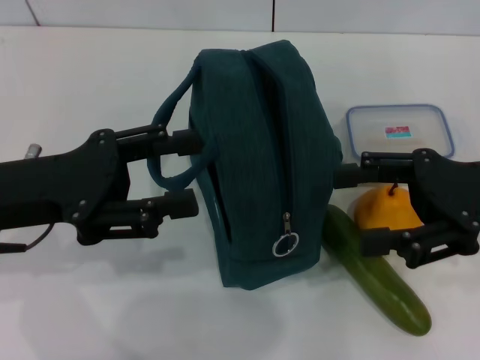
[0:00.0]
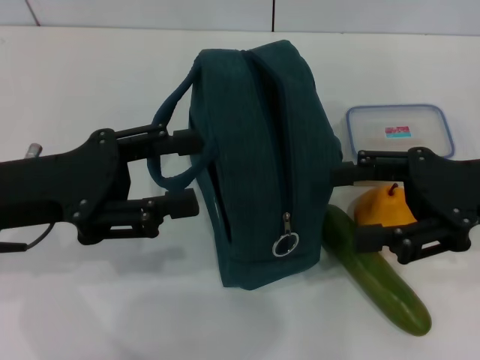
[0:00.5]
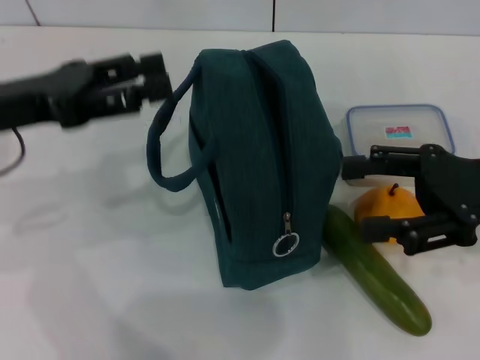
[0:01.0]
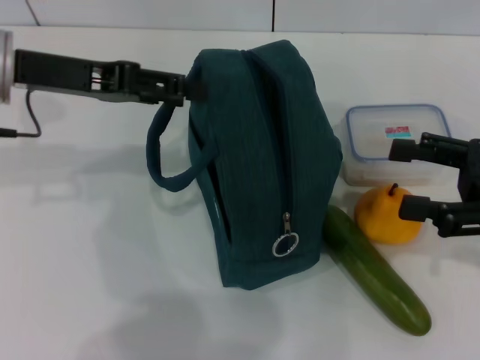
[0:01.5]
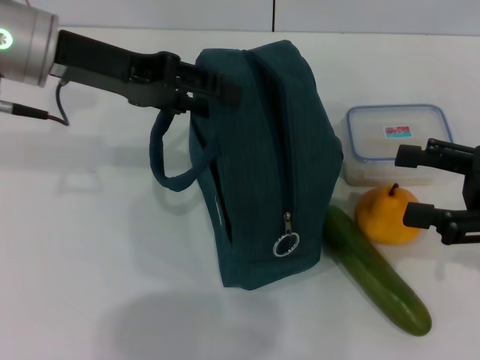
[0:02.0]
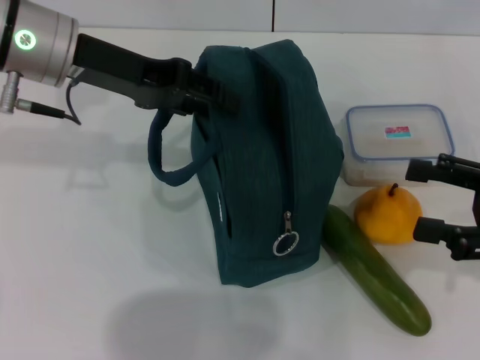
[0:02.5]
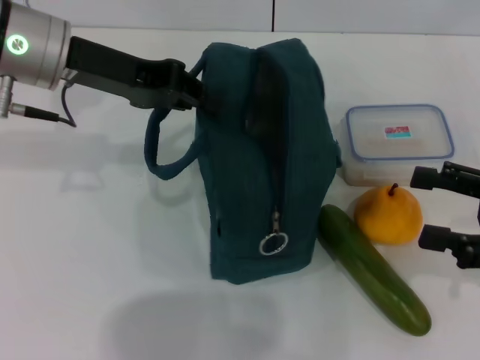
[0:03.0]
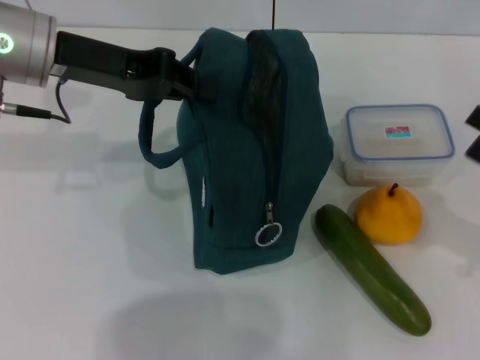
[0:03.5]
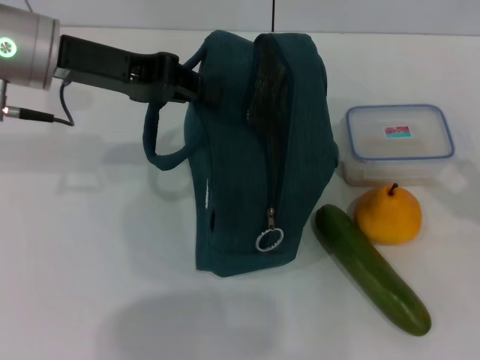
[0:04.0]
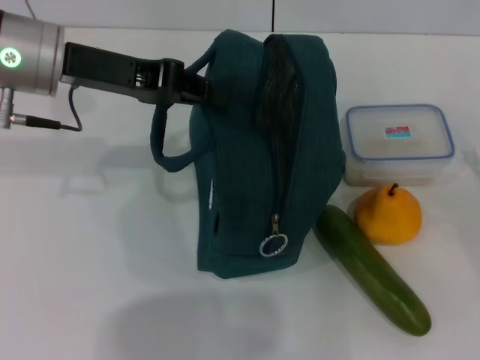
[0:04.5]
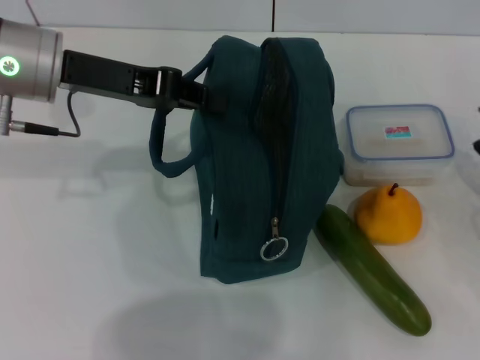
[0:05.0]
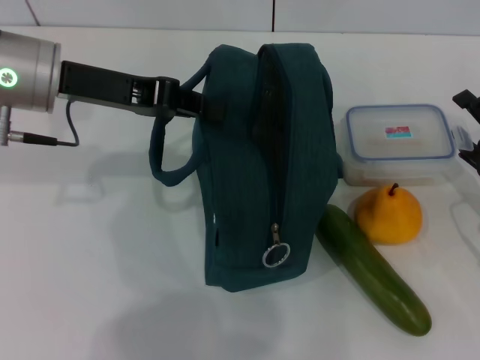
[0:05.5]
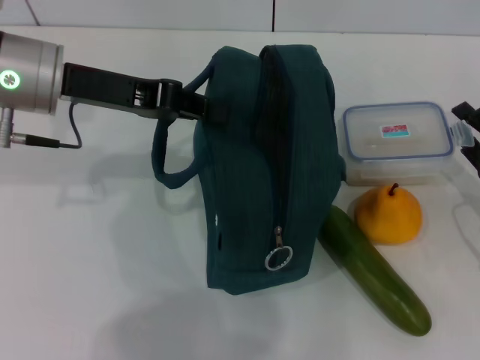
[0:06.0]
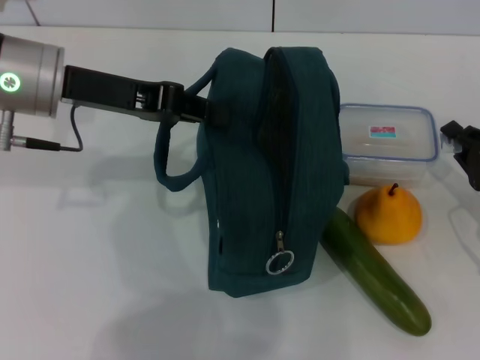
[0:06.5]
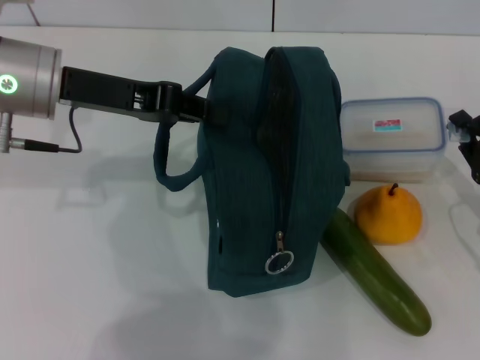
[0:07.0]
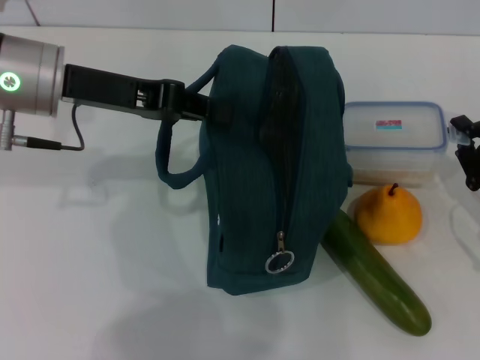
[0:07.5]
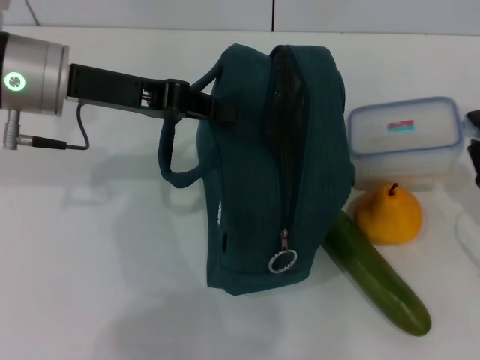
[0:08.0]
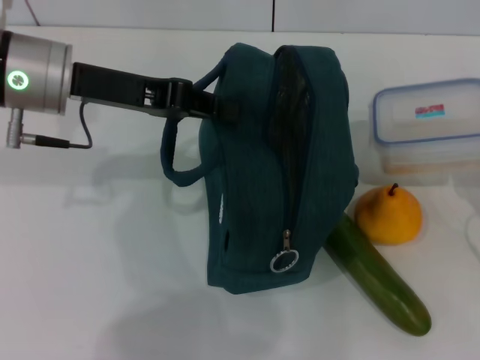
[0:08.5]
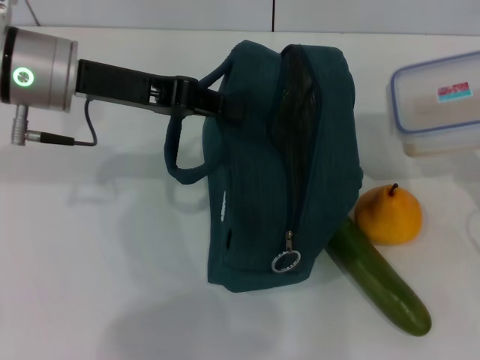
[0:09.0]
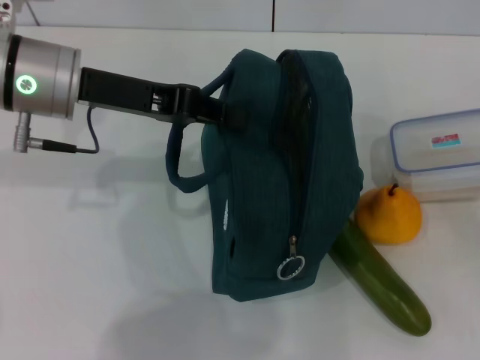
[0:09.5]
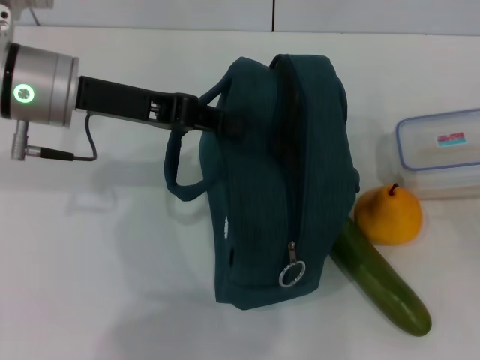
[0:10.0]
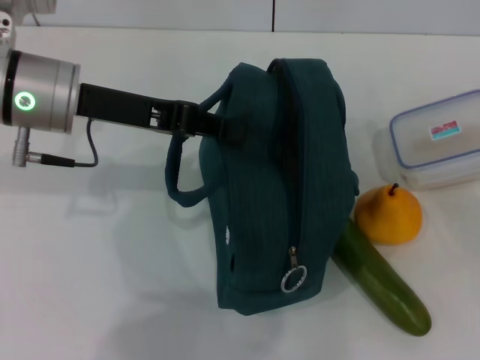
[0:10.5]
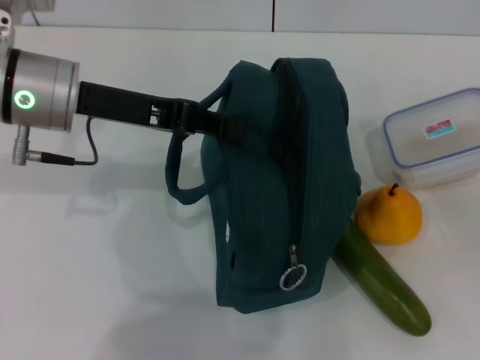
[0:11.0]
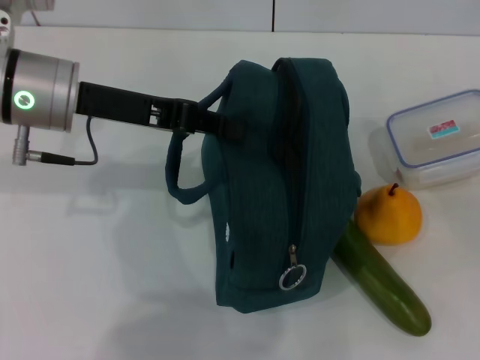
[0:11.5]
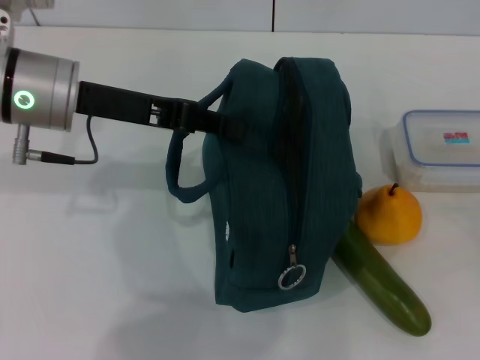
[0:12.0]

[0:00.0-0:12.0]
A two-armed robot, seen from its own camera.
Step, 0:00.0 to 0:02.5: Hold the lunch bag with your left hand.
0:00.0 to 0:02.0: The right gripper moves to the right, some 5 cm; the left gripper moves forward and upward, roughly 15 cm.
0:02.0 to 0:04.0: The left gripper closes. The right gripper moves downward, roughly 5 cm.
0:04.0 to 0:06.0: The right gripper travels forward and downward by about 10 cm.
0:06.0 to 0:08.0: The right gripper closes up.
0:08.0 to 0:10.0: The grippers stay close to where they were, moving slightly.
0:10.0 to 0:12.0: The right gripper opens.

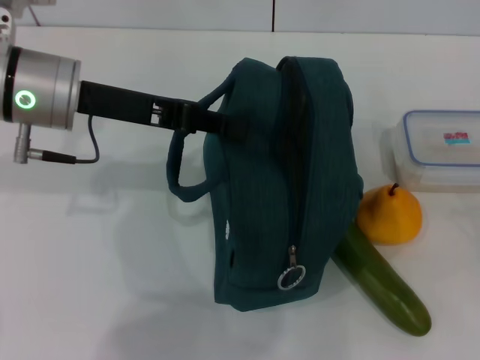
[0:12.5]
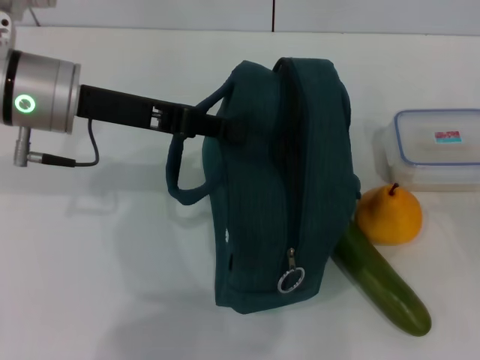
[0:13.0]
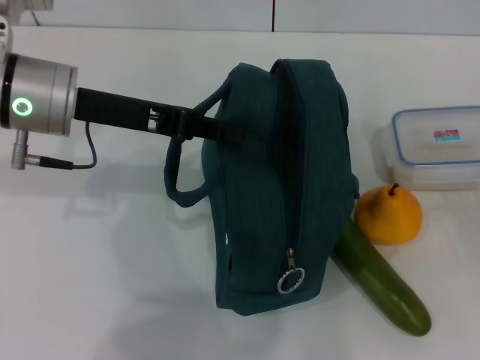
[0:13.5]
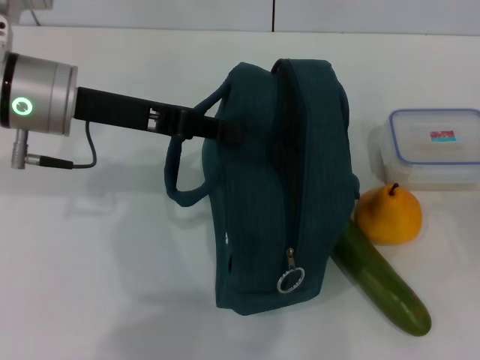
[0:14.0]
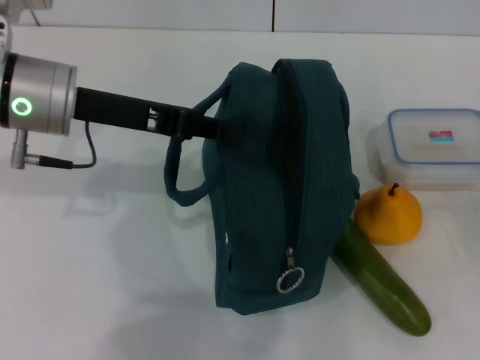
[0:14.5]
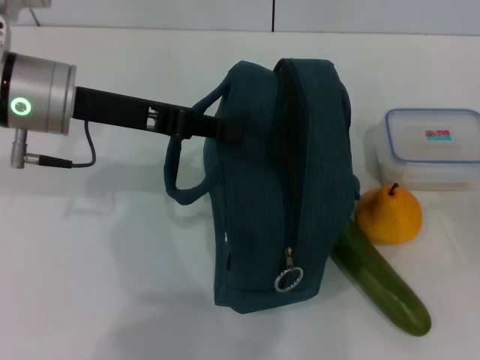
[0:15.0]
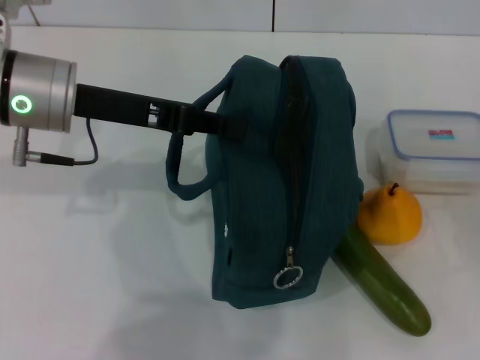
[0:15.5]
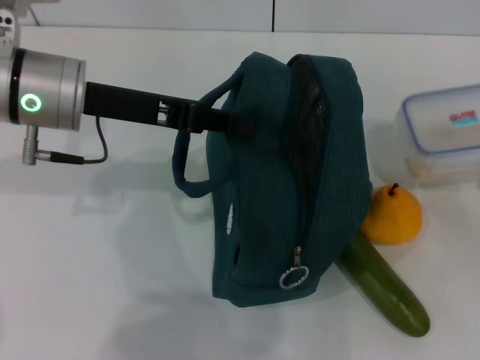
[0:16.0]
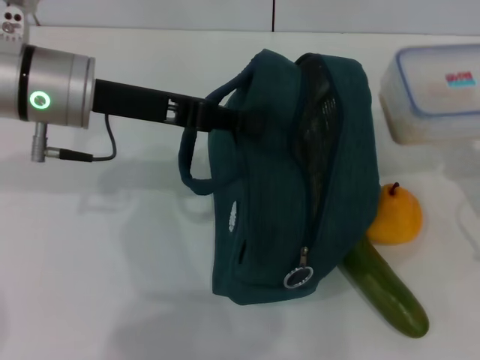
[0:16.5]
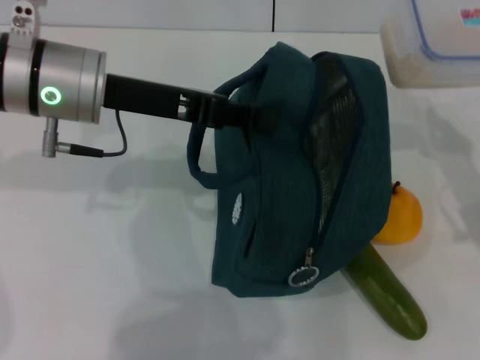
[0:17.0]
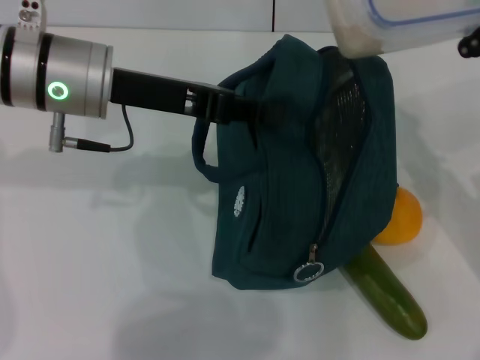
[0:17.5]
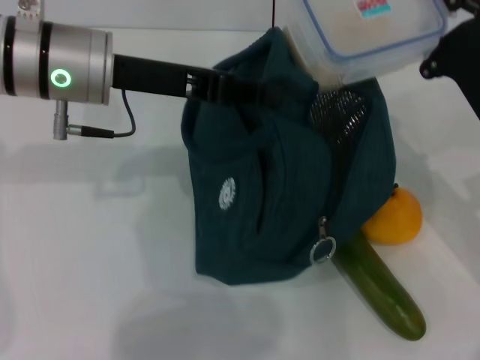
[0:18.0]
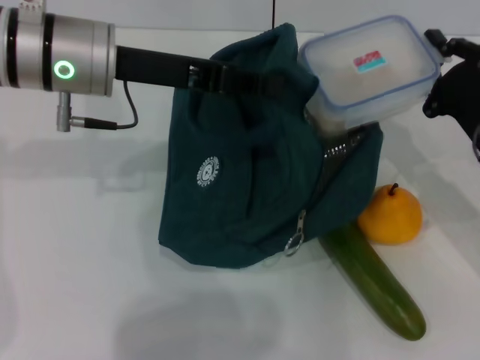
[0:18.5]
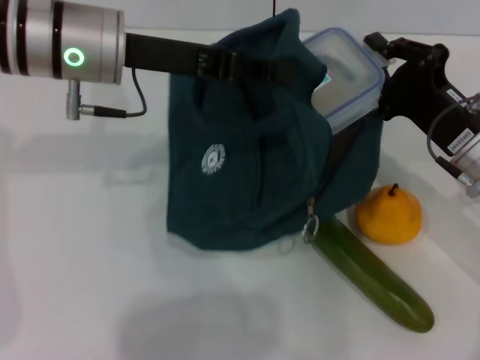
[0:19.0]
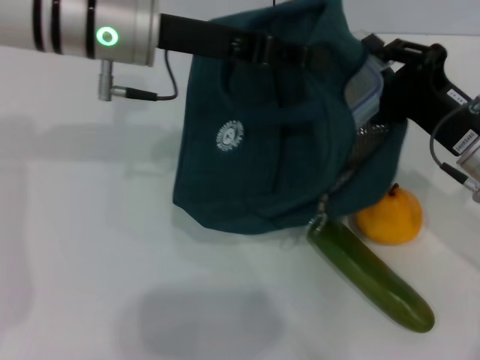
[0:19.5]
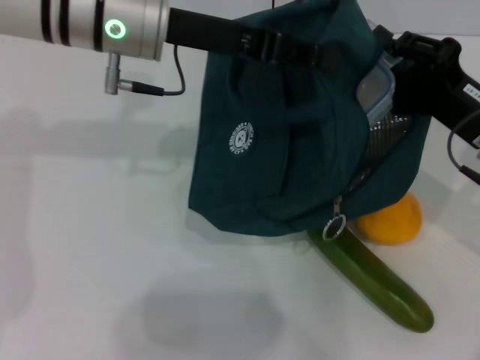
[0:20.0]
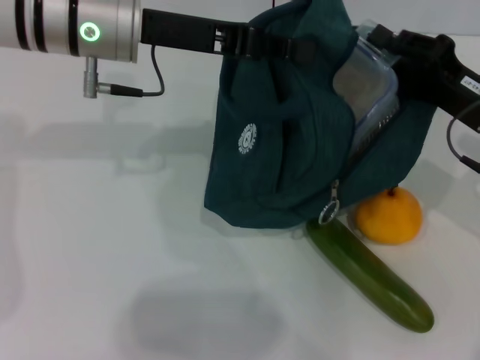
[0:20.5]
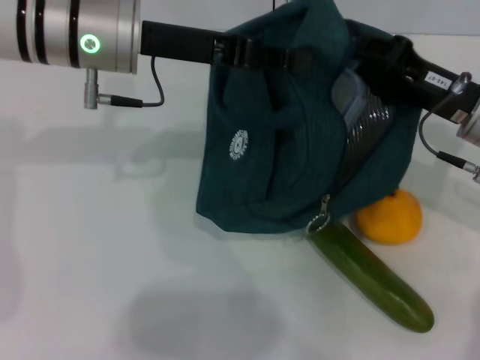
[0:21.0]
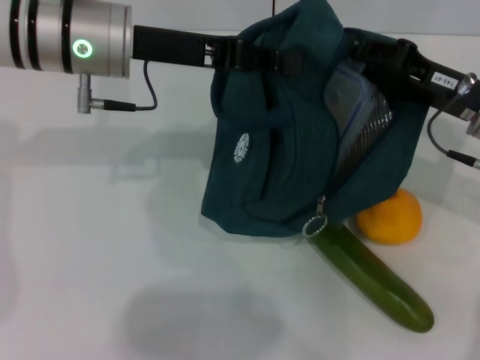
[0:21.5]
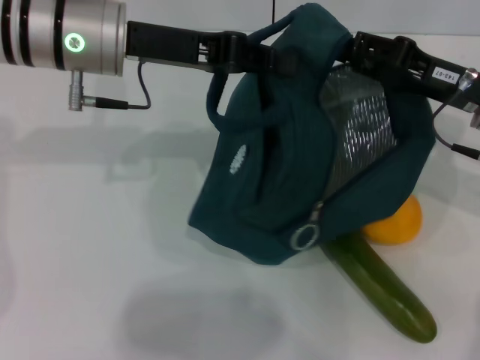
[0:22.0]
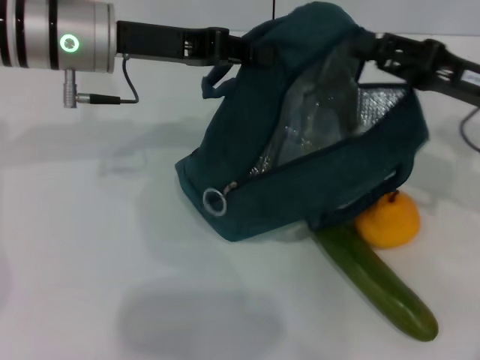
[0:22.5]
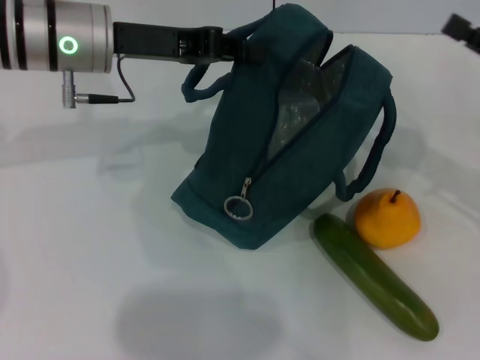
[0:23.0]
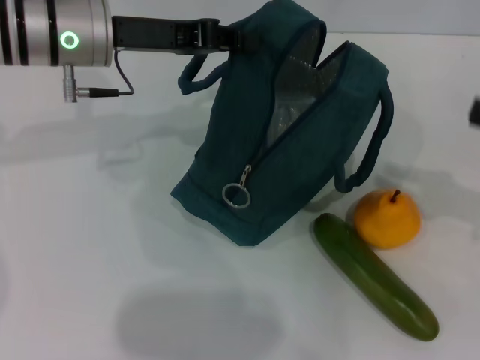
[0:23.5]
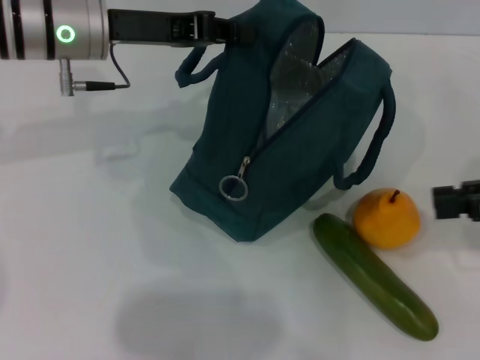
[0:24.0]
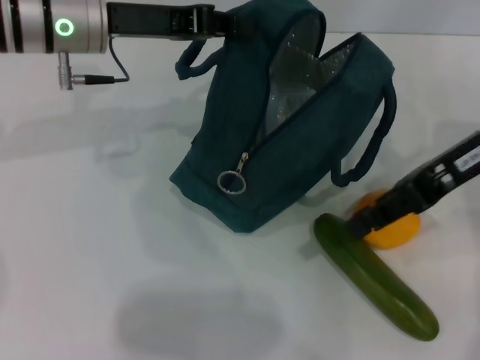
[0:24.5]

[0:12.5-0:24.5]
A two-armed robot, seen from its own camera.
Step, 0:12.5 to 0:15.0: Pick up the lunch box with your right hand.
Step, 0:15.5 to 0:22.0: Place the lunch box into the lunch bag with your right hand.
0:12.5 to 0:14.5: The grippers stay close to where they were, moving slightly.
0:16.5 to 0:18.5: The right gripper shifts roughly 5 cm to the left.
0:22.5 to 0:24.5: The right gripper is displaced upward by some 10 cm, and travels to the right and back again, approximately 10 cm each way.

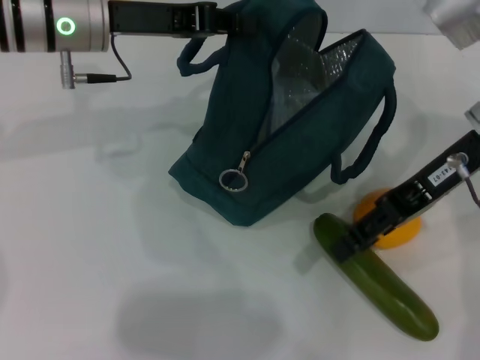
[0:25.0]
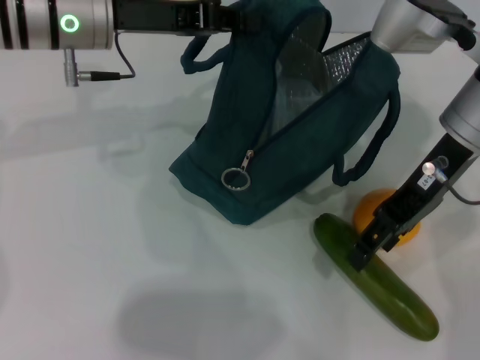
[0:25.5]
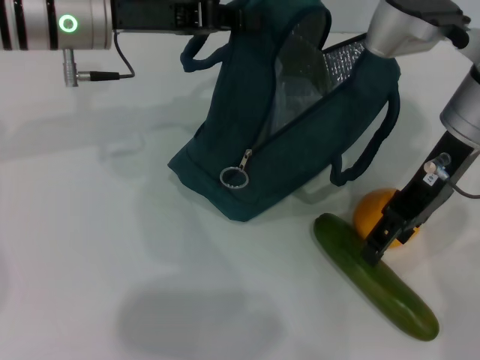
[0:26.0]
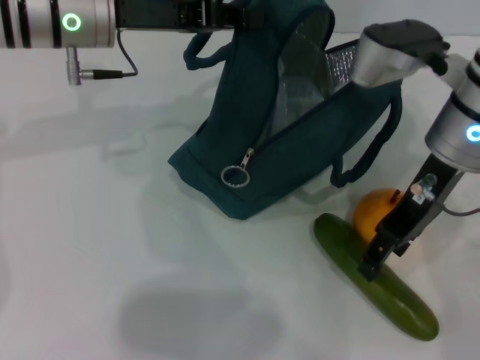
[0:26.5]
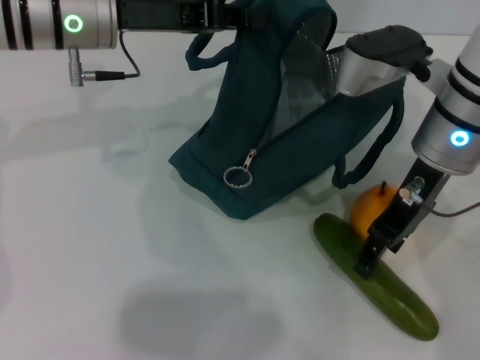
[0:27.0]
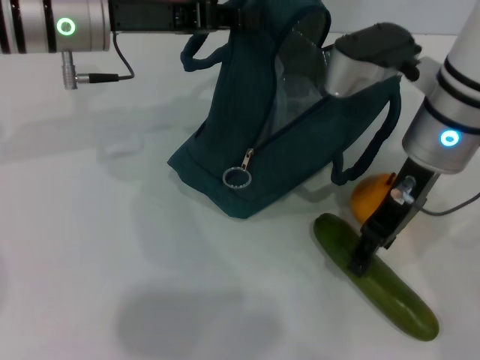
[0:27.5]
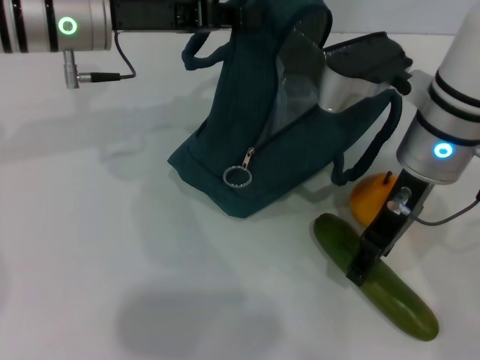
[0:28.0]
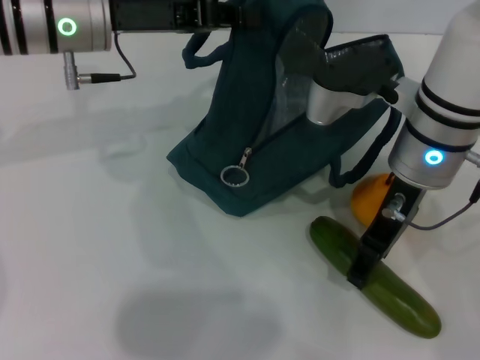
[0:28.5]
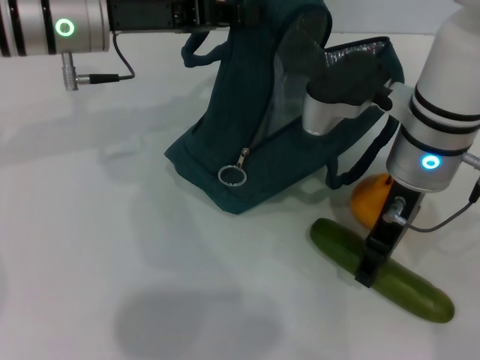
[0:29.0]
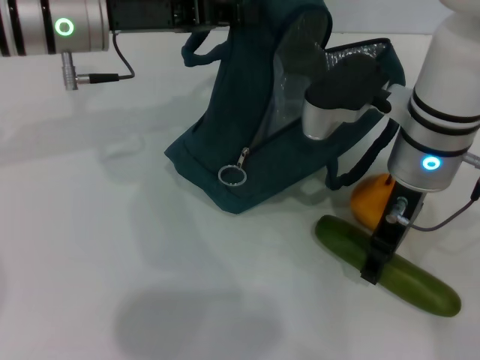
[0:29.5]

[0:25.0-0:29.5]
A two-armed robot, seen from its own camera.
Step, 0:25.0 to 0:29.0: Pick up the cucumber with your right hand.
0:25.0 to 0:27.0: The right gripper ends up about 5 cm from where it was.
